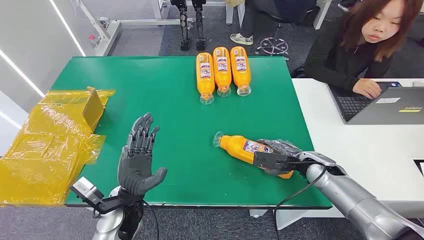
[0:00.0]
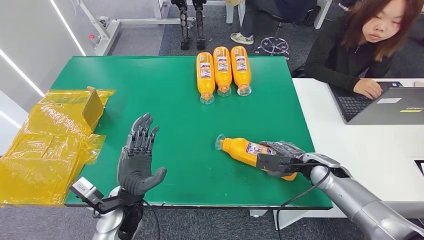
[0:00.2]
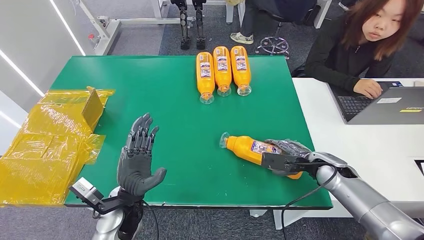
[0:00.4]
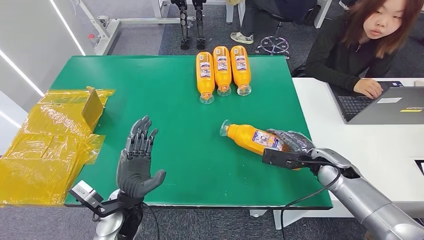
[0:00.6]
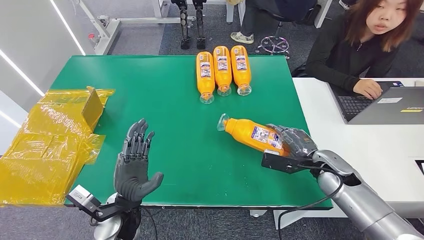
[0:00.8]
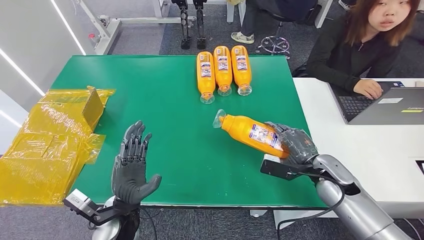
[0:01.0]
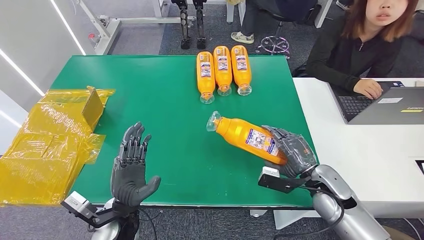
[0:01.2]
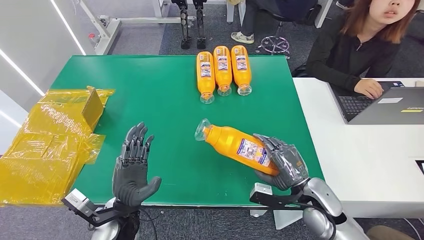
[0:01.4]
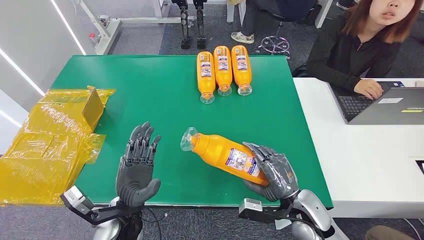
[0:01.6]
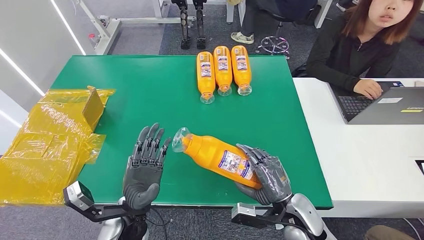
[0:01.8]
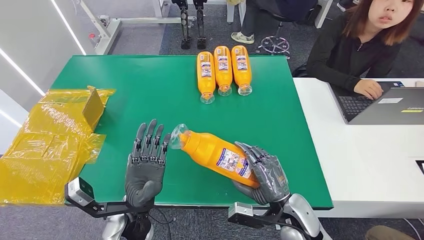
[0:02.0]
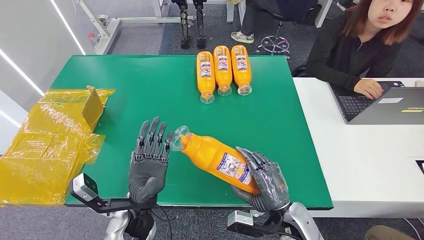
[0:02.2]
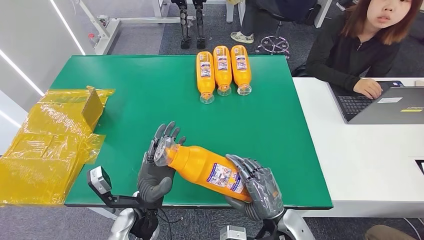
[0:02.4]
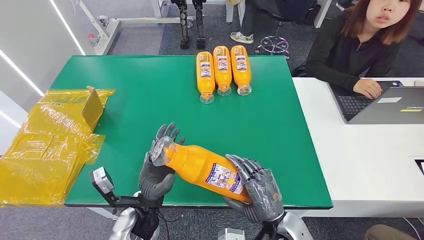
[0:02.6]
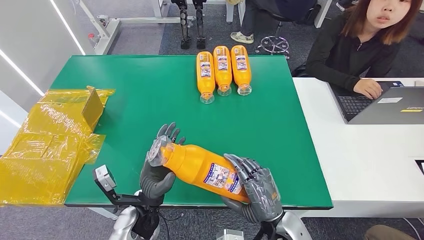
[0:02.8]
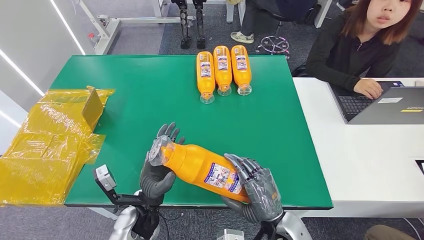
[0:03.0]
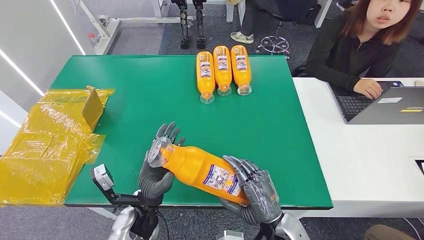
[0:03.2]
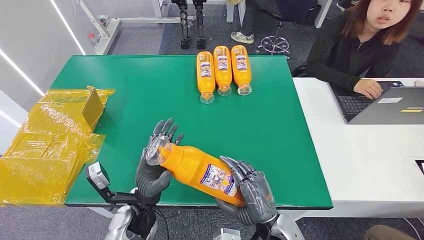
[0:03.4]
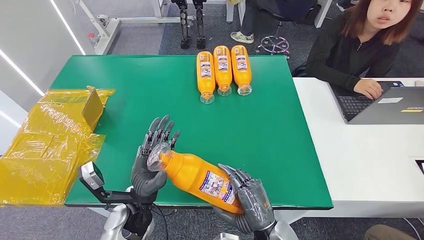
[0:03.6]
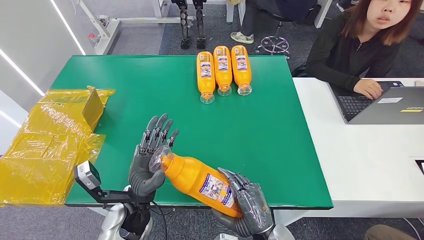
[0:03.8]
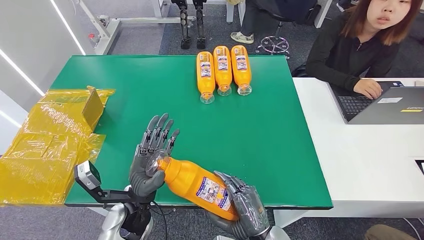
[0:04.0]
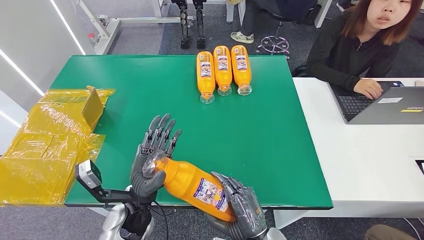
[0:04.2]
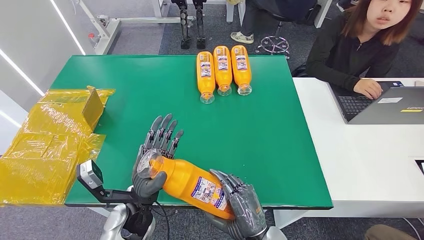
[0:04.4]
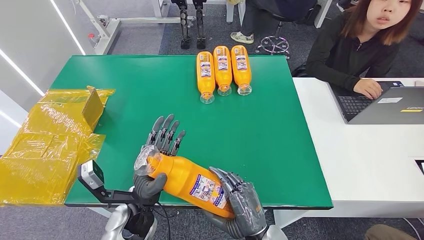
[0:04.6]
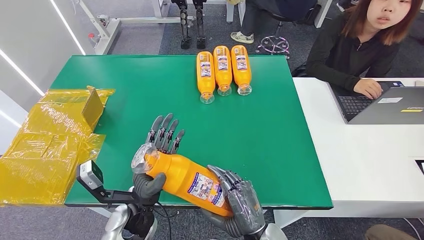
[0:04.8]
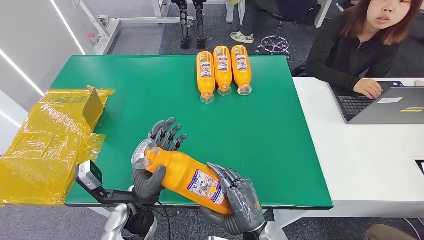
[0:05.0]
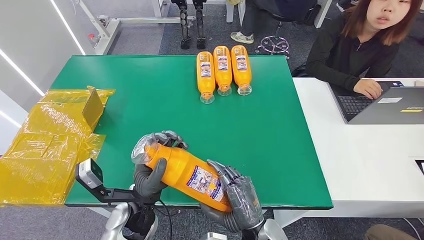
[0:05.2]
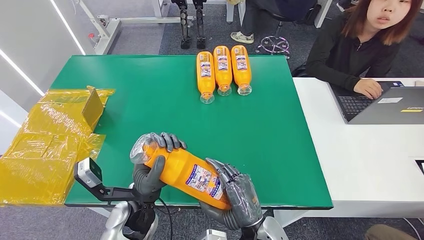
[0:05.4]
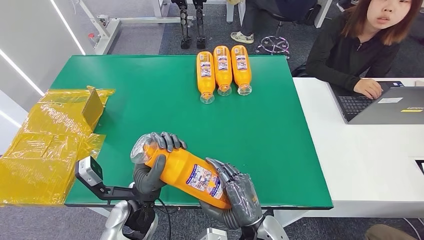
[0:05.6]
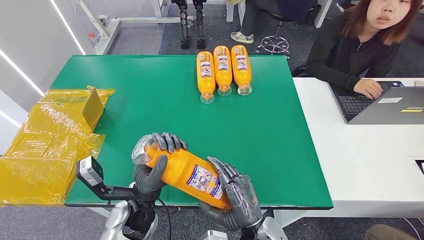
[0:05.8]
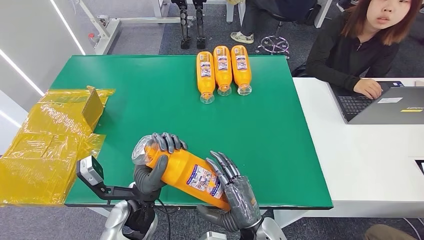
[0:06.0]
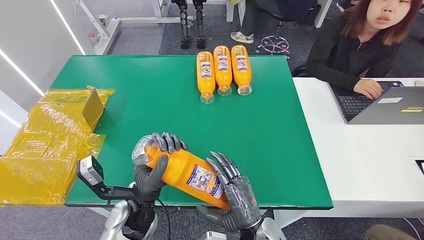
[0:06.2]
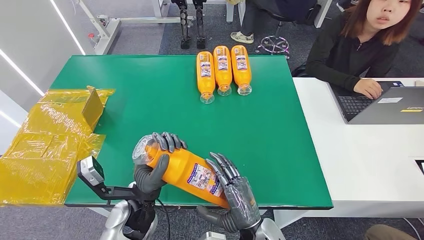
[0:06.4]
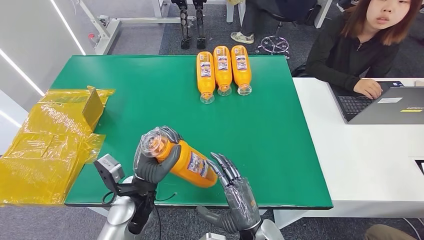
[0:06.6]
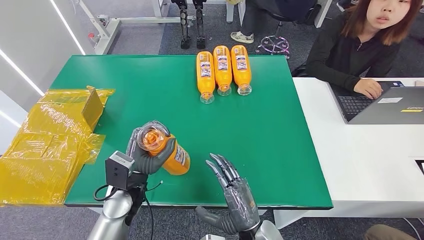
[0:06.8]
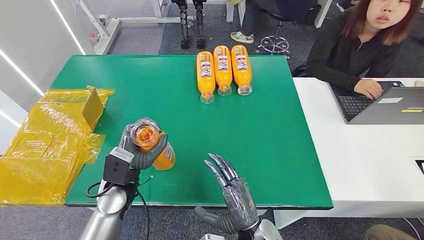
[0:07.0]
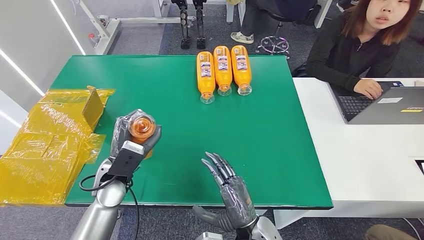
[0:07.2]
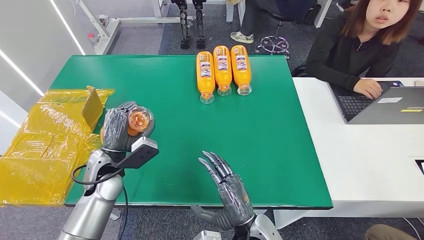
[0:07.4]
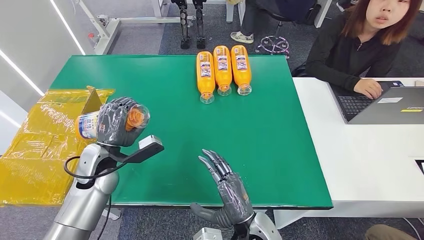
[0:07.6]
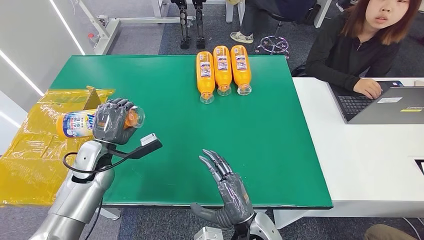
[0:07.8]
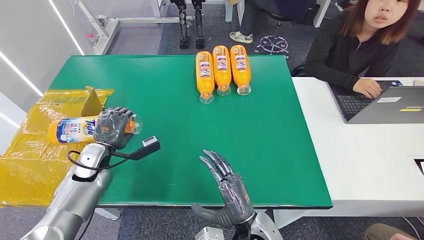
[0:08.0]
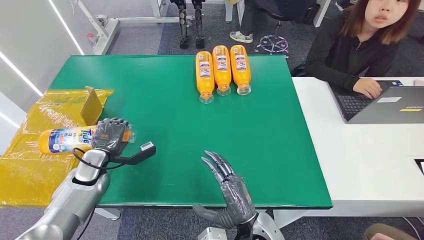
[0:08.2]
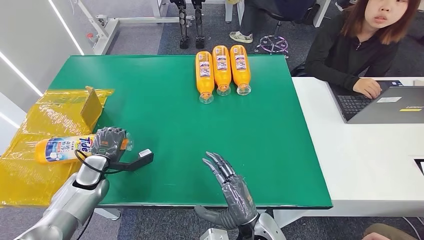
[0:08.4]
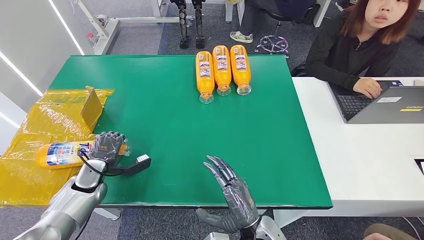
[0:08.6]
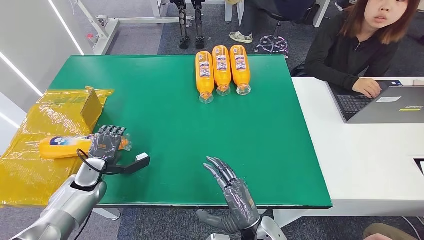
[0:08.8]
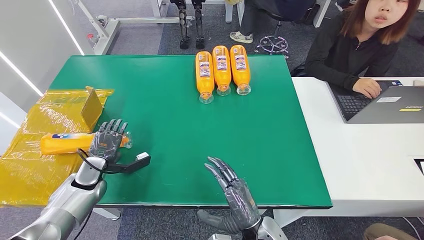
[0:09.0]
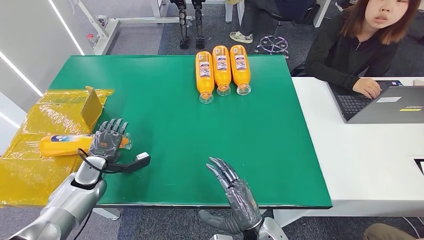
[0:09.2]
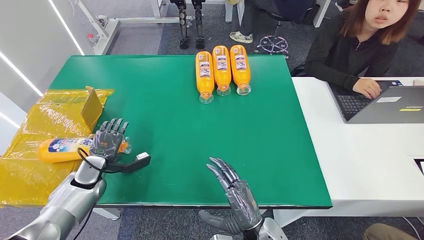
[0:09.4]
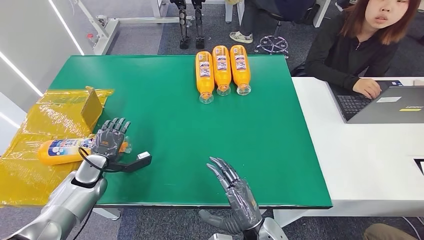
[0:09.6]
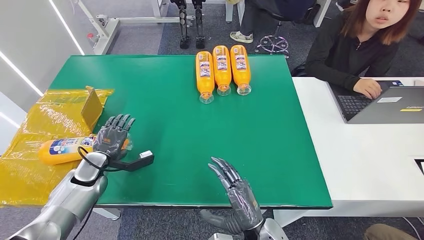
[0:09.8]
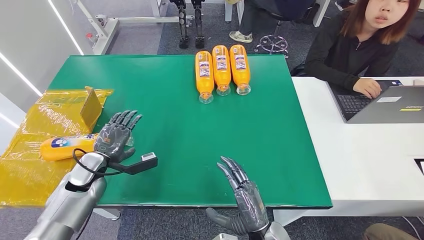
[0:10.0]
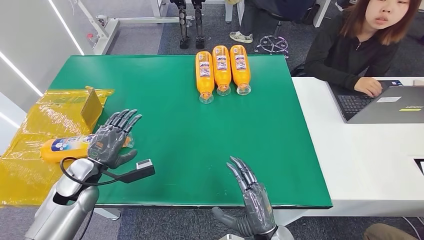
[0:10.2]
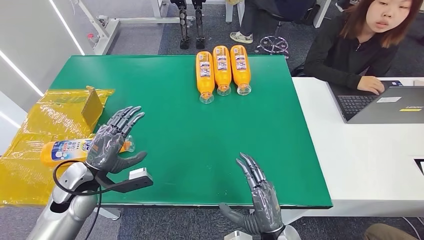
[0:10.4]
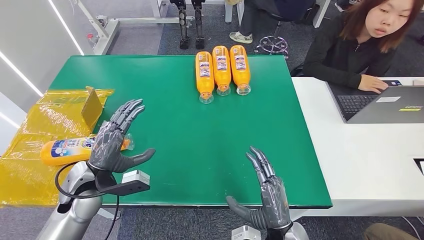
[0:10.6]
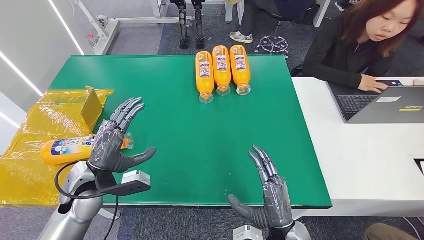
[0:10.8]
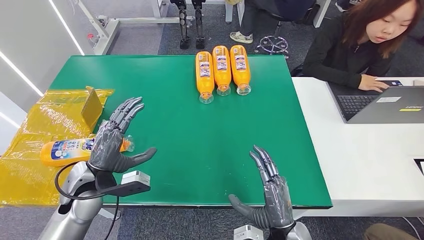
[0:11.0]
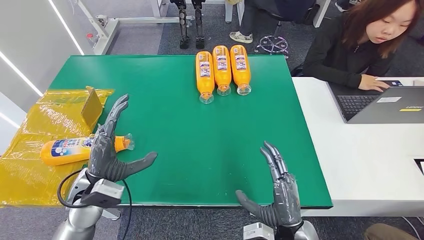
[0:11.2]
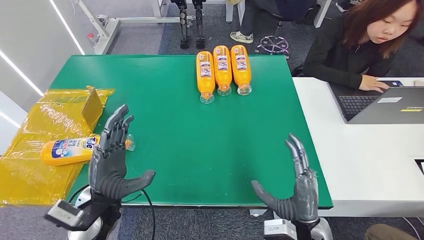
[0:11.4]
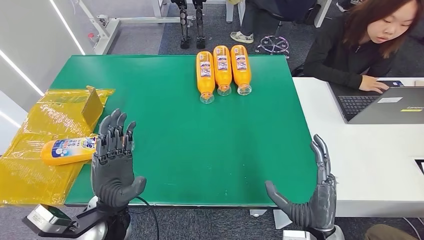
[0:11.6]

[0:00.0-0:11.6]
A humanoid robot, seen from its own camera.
Step, 0:00.0 to 0:04.2: Pick up the bottle from the table.
Step, 0:04.4 to 0:11.6: Turn the bottle to the front side.
0:01.4 to 0:02.8: The right hand heads to the left and backward, covering about 15 cm.
0:02.8 to 0:04.4: The right hand shifts by some 5 cm.
0:04.4 to 0:05.8: There are only small adjustments of the hands.
0:05.8 to 0:07.2: The left hand moves to the left and forward, approximately 10 cm.
0:07.2 to 0:08.8: The left hand is displaced to the left and downward by about 20 cm.
0:08.8 to 0:10.2: The left hand moves upward, approximately 5 cm.
0:10.2 to 0:11.6: The right hand heads to the right and upward, covering some 10 cm, while the left hand shifts approximately 20 cm to the right and backward.
